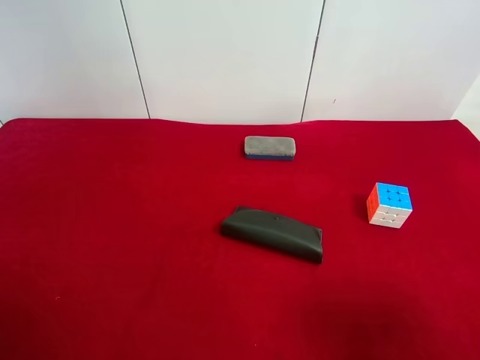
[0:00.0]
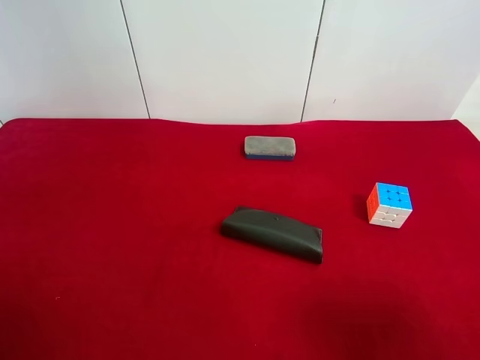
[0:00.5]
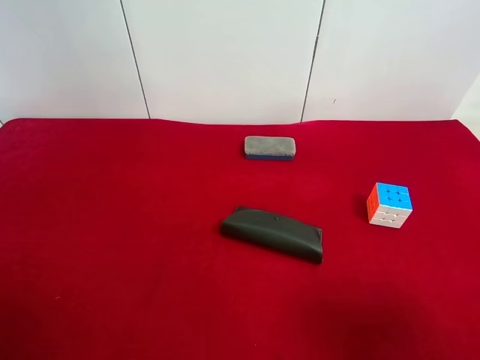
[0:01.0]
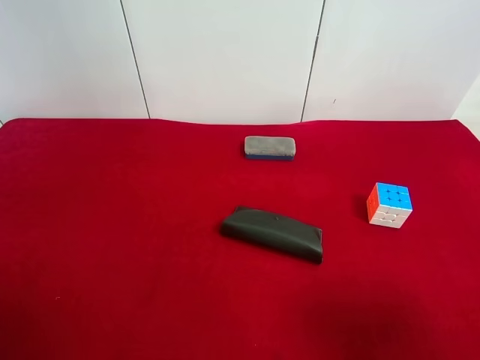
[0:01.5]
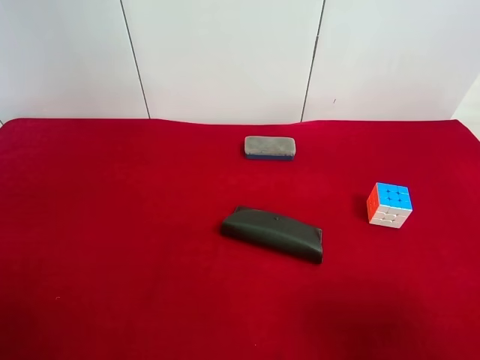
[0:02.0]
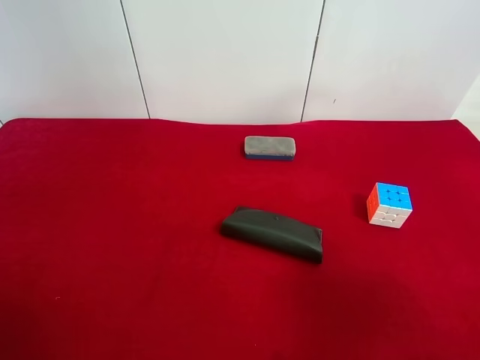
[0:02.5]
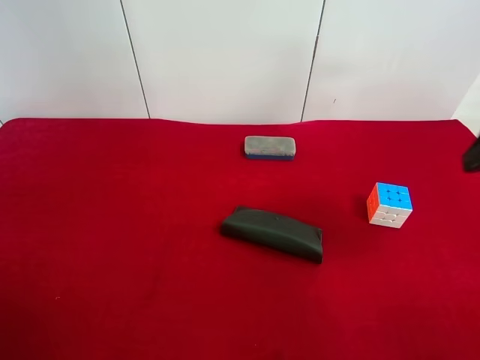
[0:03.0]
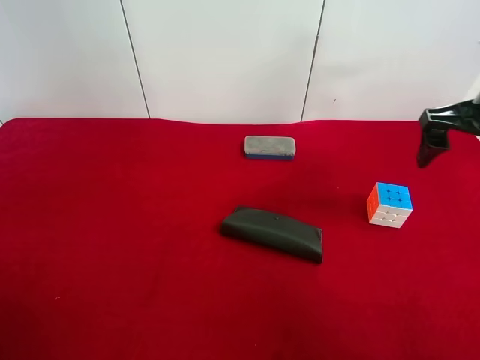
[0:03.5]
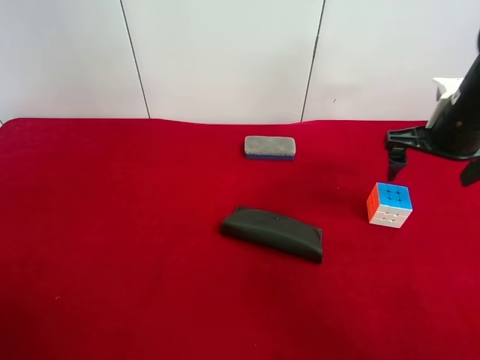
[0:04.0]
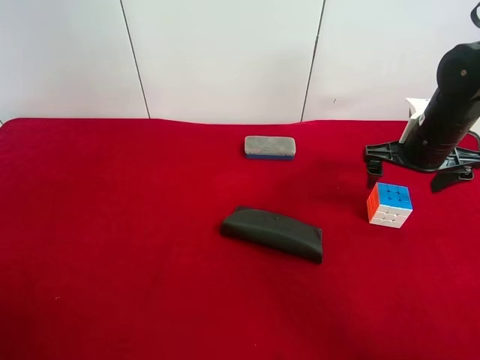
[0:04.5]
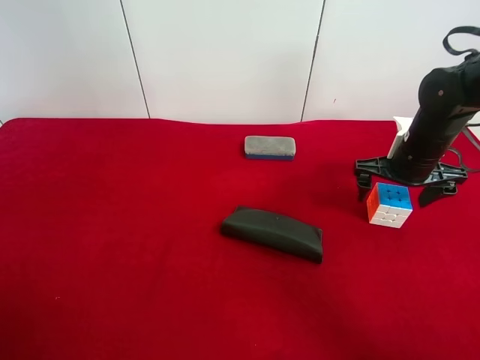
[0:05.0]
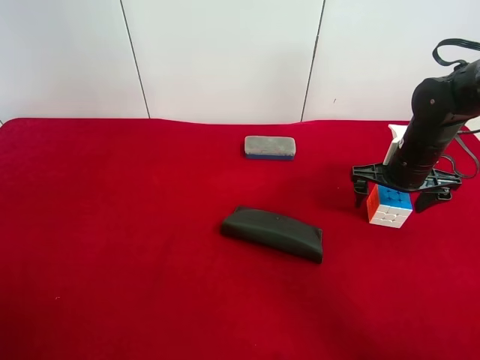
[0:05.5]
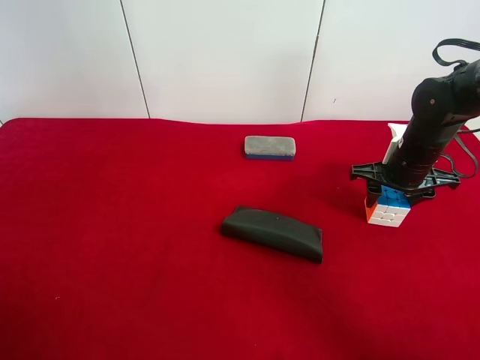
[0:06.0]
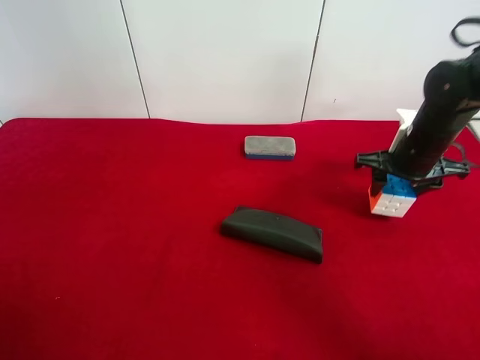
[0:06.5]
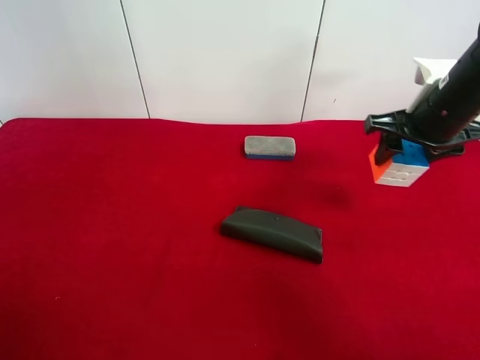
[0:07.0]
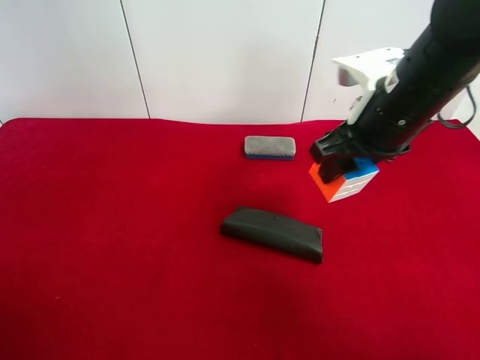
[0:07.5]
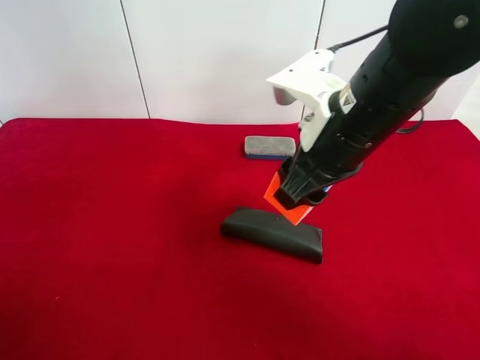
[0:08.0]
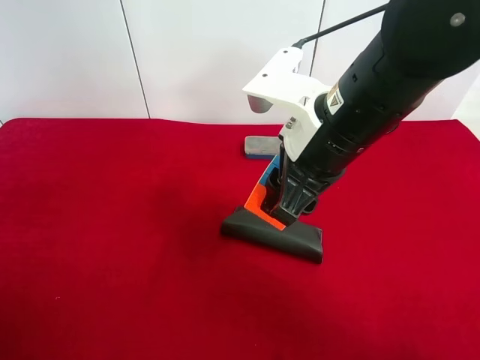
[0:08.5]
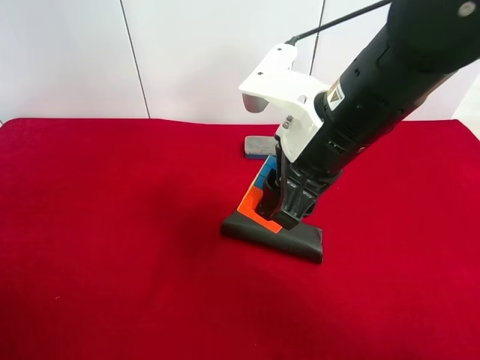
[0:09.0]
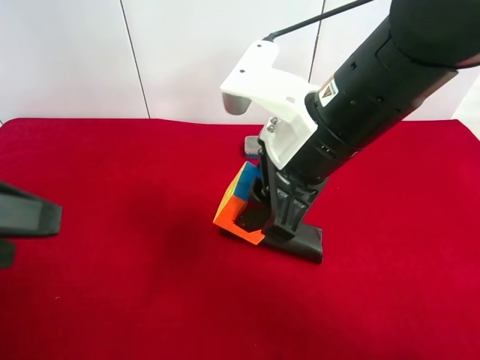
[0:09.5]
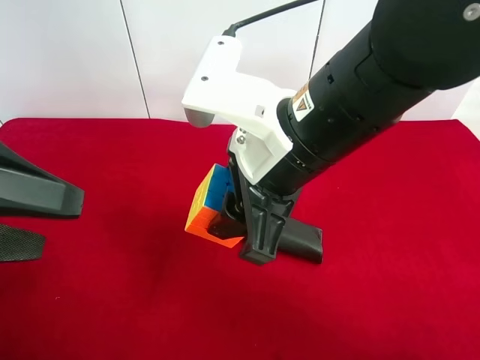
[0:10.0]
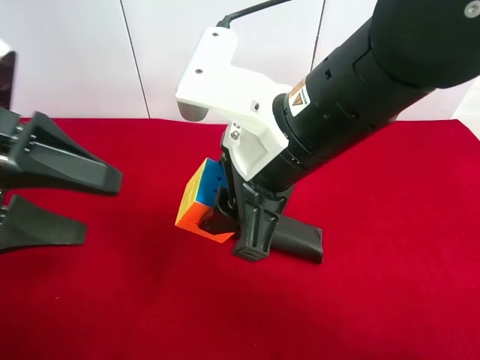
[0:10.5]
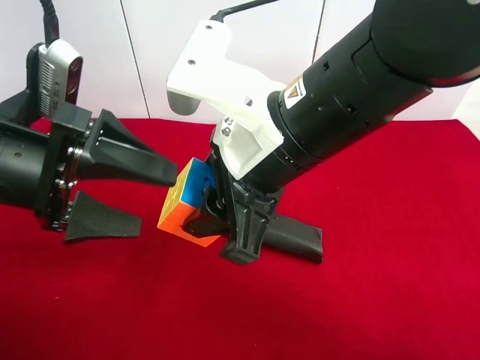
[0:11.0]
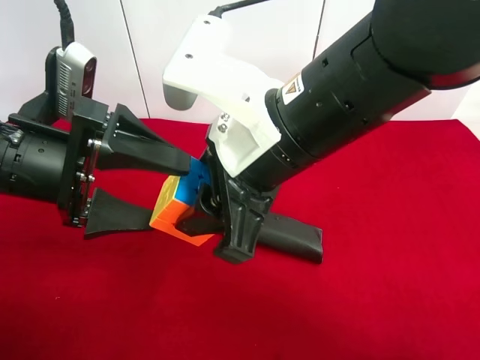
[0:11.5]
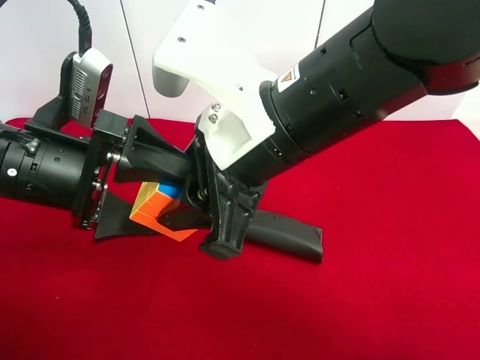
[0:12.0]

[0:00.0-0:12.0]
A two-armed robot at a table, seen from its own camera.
Task of the whole recording: use the right gripper to pick up the item and transfer it from the right gripper to the left gripper.
Step, 0:00.0 to 0:05.5: Use the right gripper to grab the Rubik's Cube on the right side of the table.
0:00.0 to 0:02.0: Neither gripper changes place.
0:02.0 to 0:04.0: The right gripper moves forward, some 30 cm.
0:04.0 to 0:06.0: The right gripper is displaced downward by about 10 cm, and closes its fingers.
0:06.0 to 0:08.0: The right gripper shifts about 25 cm to the left, upward and backward.
0:08.0 to 0:10.0: The left gripper goes about 15 cm forward and to the right. The right gripper travels to the left by approximately 5 cm.
0:10.0 to 0:12.0: The left gripper is displaced to the right and forward by some 10 cm.

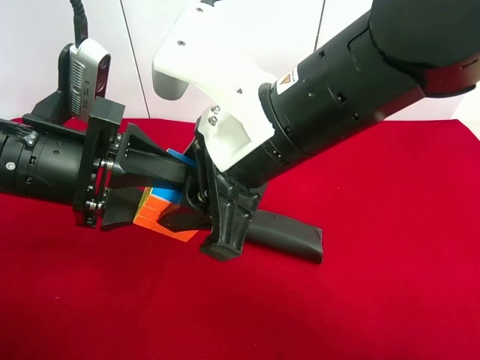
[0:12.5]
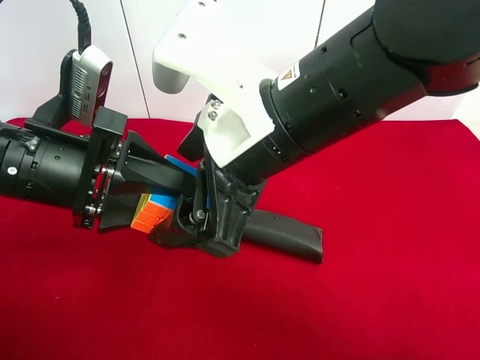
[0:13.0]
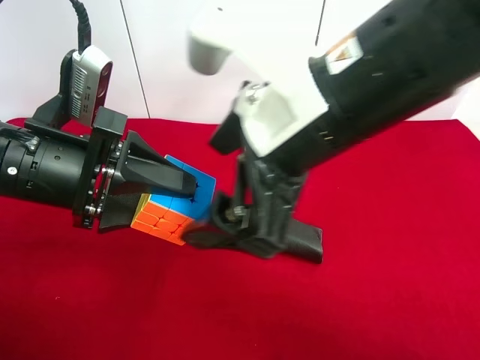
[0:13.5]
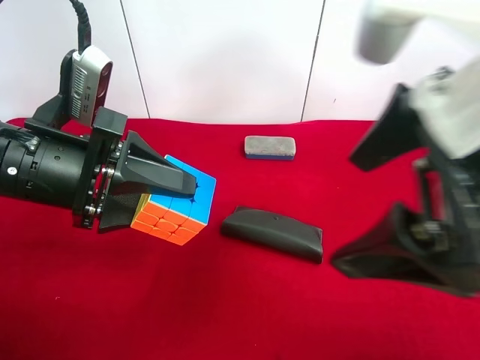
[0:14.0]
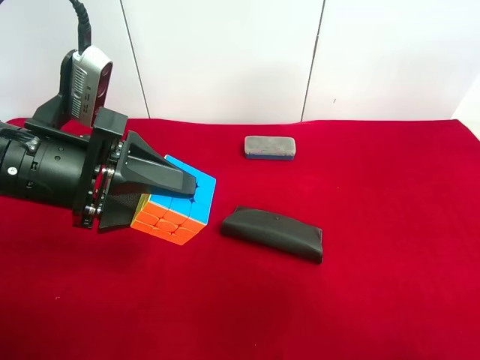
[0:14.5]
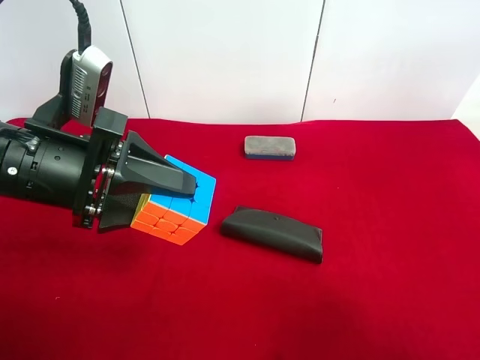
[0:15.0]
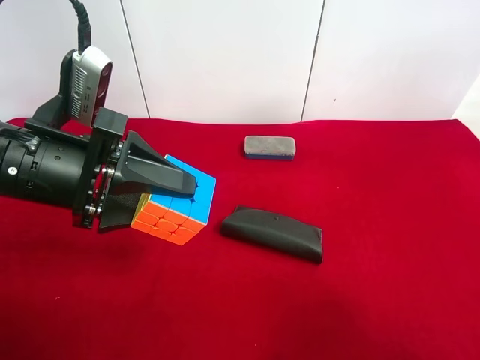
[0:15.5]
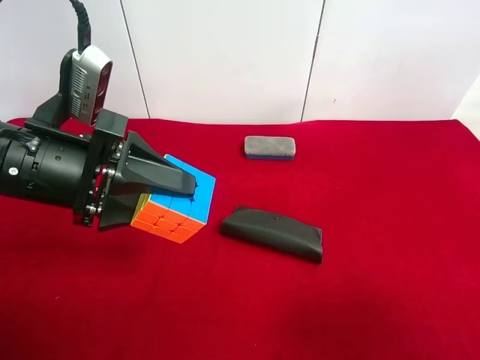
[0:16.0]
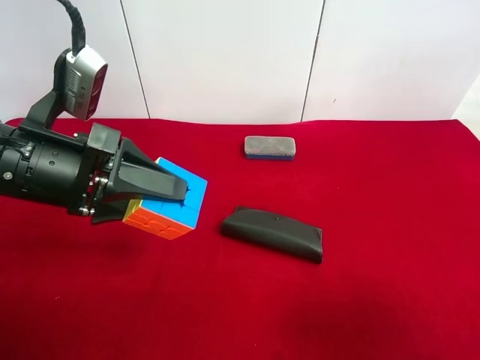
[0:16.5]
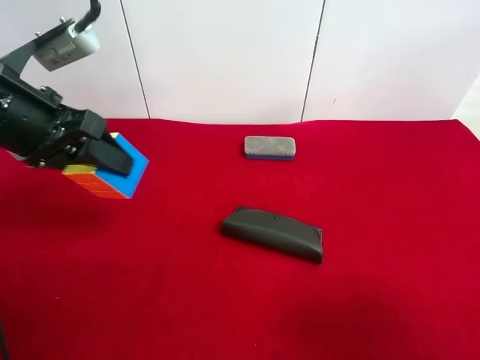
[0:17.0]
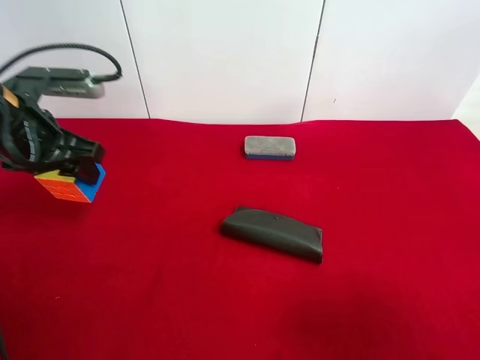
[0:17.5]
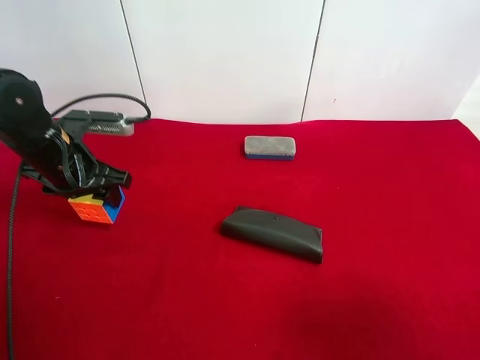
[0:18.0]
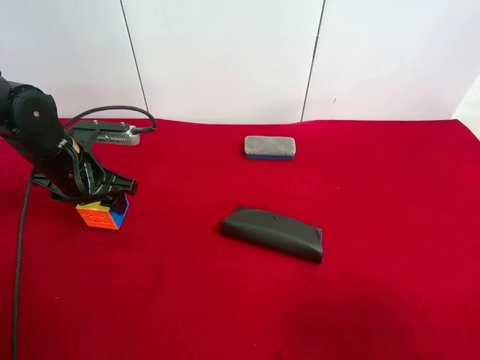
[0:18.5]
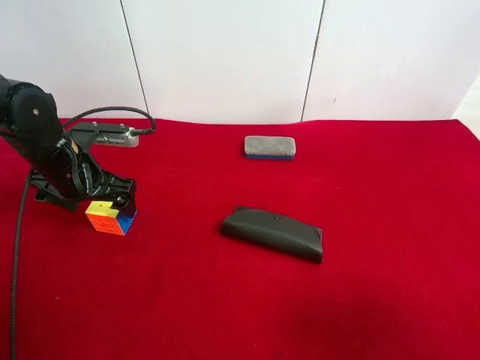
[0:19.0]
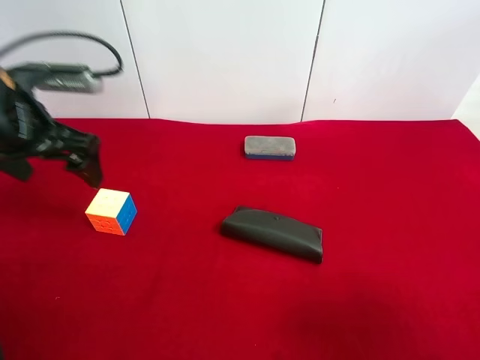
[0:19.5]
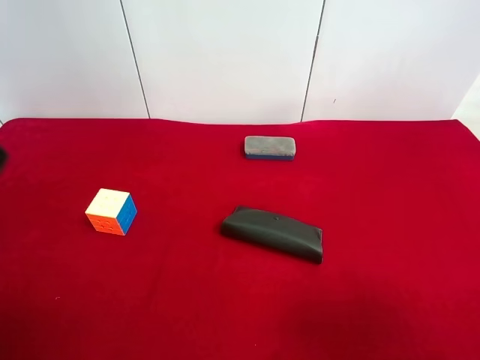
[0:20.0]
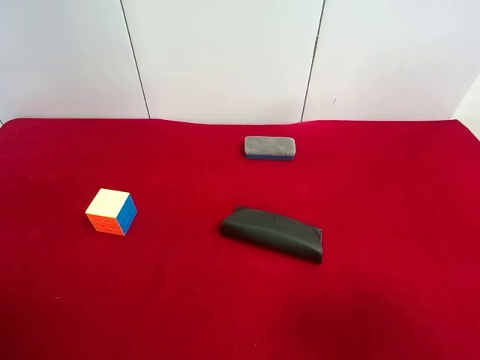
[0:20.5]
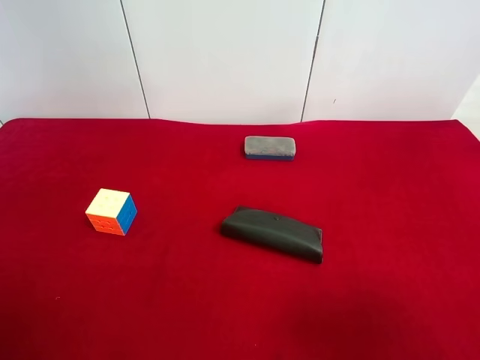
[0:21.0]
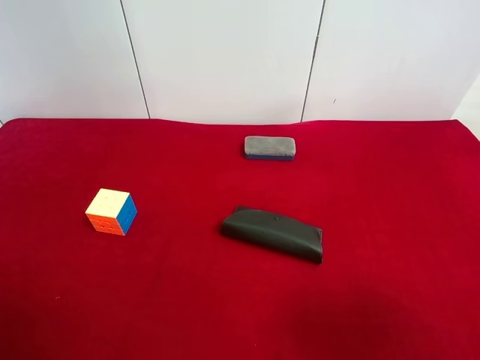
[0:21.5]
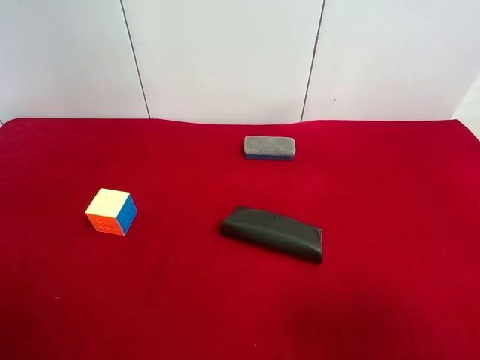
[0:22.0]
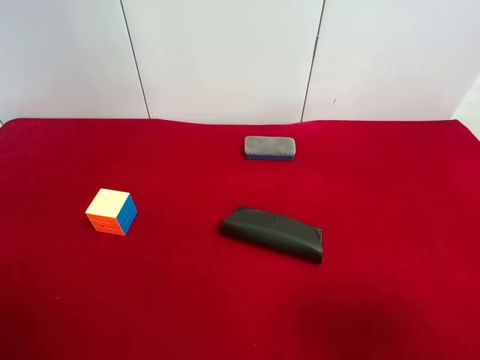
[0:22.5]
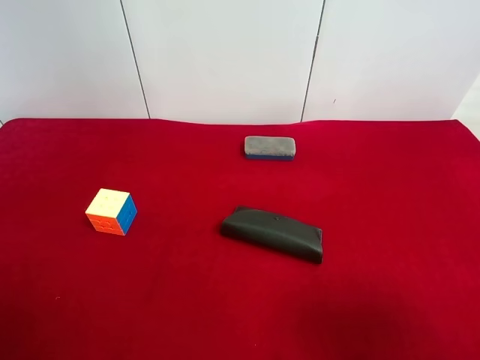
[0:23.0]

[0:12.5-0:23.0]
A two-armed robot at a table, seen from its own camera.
Task of the whole recording: use the right gripper to pick up the item and transfer it from the right gripper to the left gripper.
Step, 0:13.0 to 0:18.5: The left gripper places Rubik's Cube on the left side of the table.
0:12.5 to 0:14.5: The right gripper shifts approximately 25 cm to the right and backward, and opens its fingers.
0:14.5 to 0:16.5: The right gripper goes about 5 cm downward.
0:16.5 to 0:19.0: The left gripper goes roughly 15 cm forward and downward, and opens up.
0:19.0 to 0:21.0: The left gripper shifts about 35 cm backward and upward.
